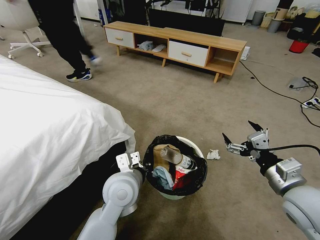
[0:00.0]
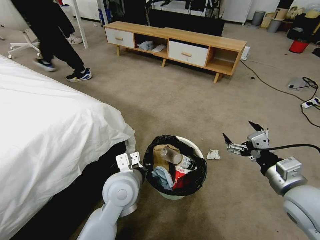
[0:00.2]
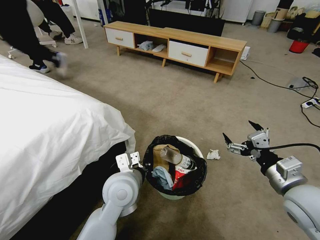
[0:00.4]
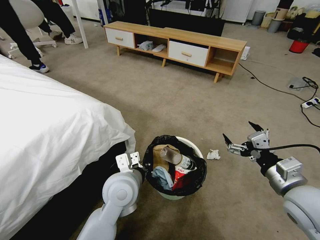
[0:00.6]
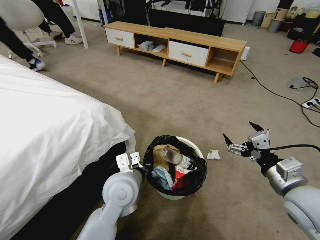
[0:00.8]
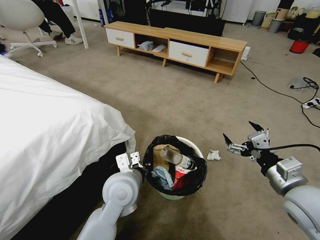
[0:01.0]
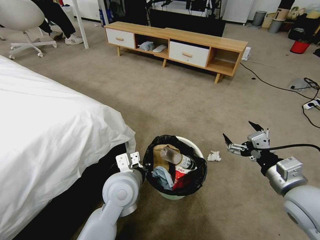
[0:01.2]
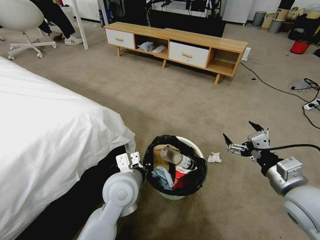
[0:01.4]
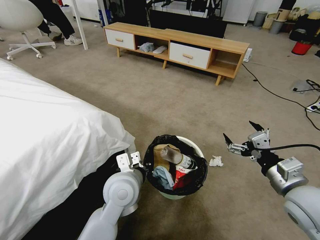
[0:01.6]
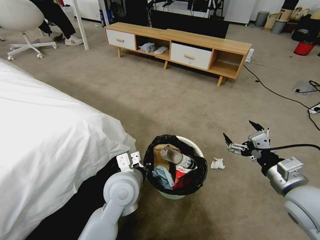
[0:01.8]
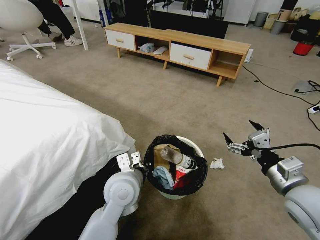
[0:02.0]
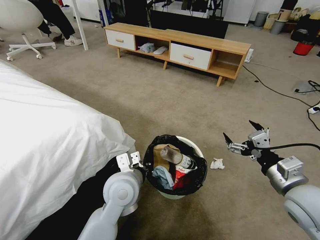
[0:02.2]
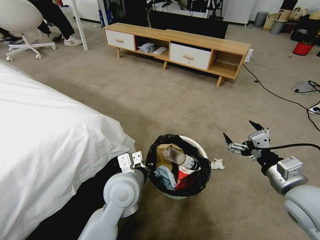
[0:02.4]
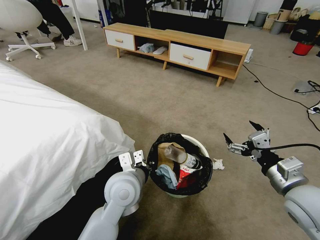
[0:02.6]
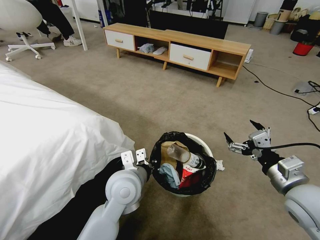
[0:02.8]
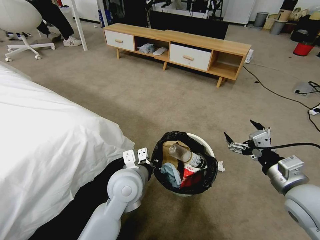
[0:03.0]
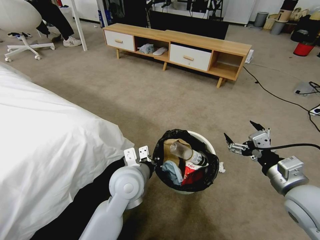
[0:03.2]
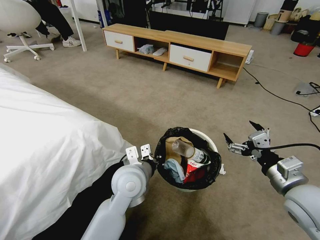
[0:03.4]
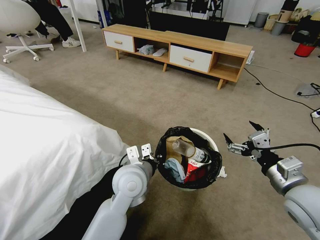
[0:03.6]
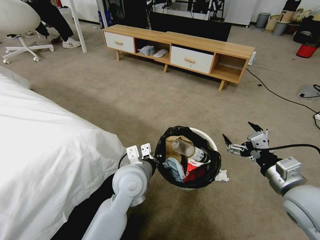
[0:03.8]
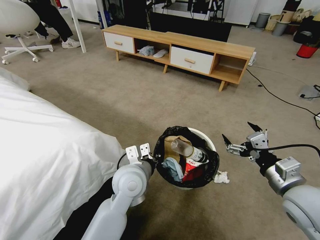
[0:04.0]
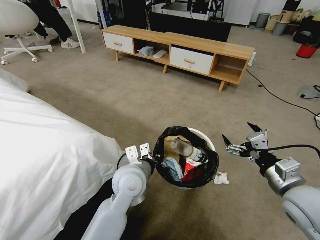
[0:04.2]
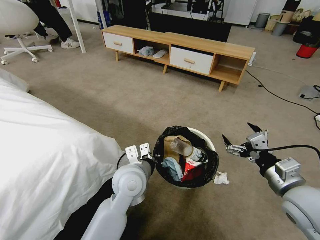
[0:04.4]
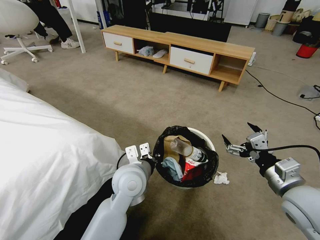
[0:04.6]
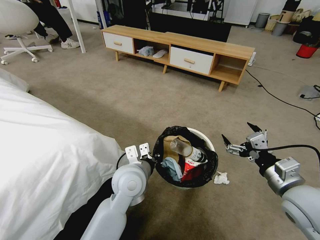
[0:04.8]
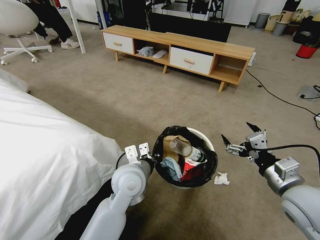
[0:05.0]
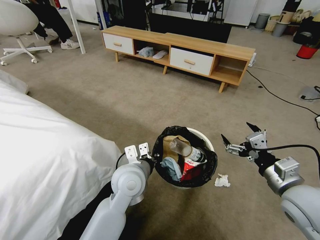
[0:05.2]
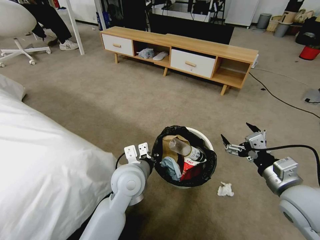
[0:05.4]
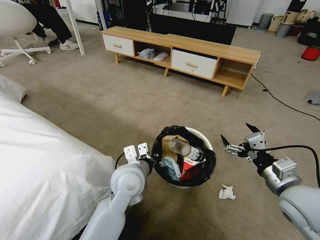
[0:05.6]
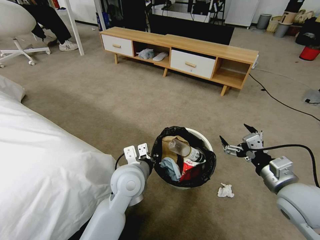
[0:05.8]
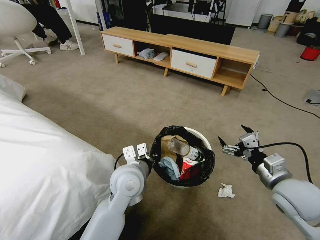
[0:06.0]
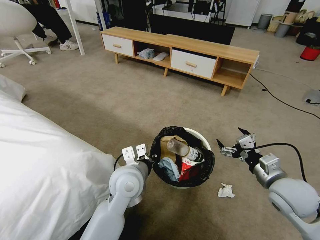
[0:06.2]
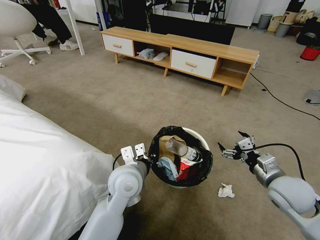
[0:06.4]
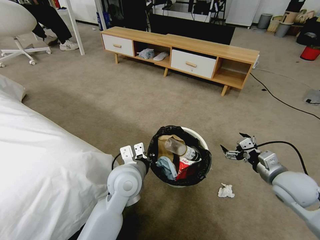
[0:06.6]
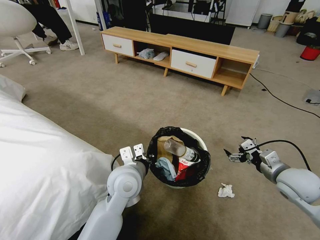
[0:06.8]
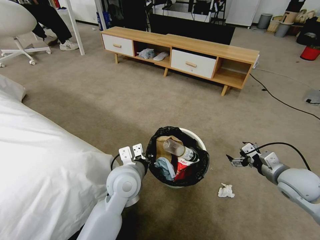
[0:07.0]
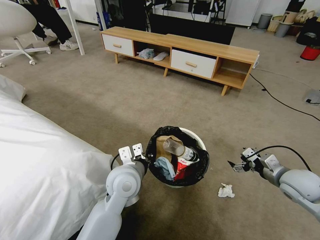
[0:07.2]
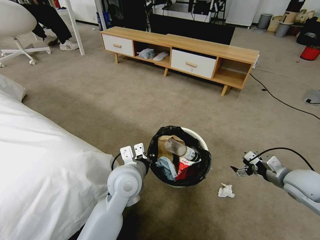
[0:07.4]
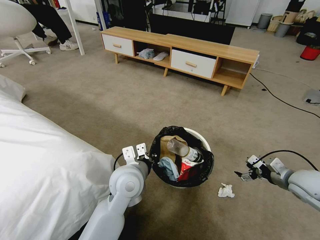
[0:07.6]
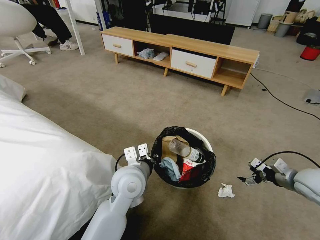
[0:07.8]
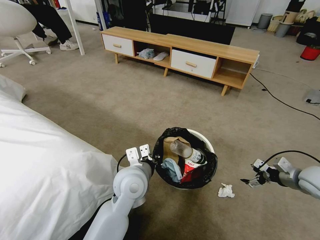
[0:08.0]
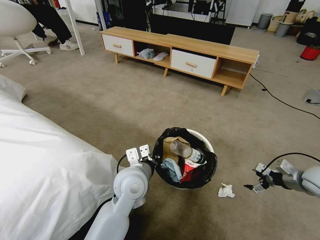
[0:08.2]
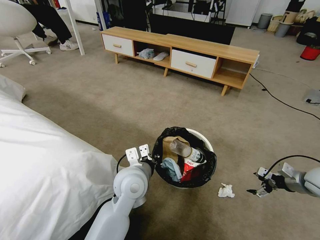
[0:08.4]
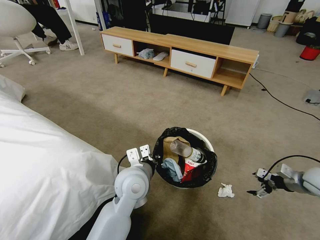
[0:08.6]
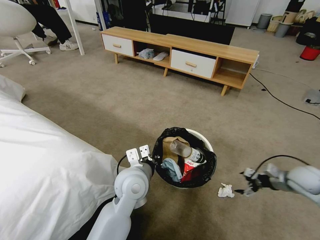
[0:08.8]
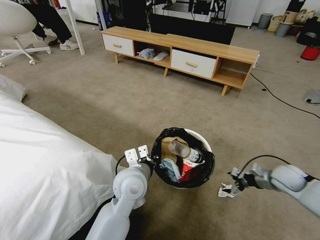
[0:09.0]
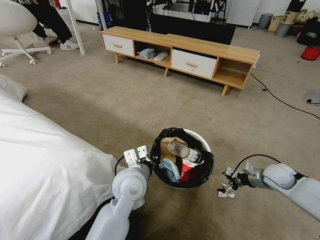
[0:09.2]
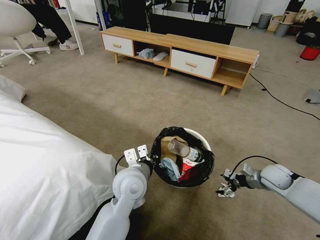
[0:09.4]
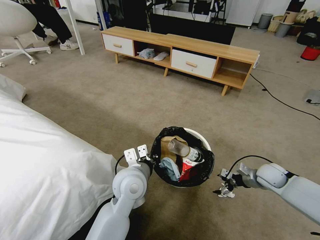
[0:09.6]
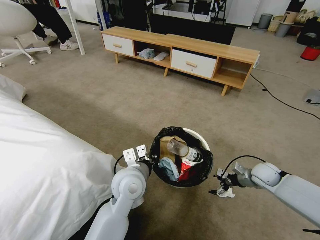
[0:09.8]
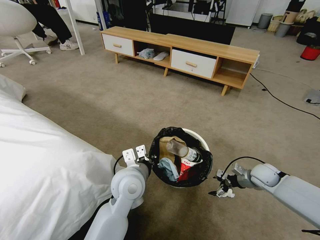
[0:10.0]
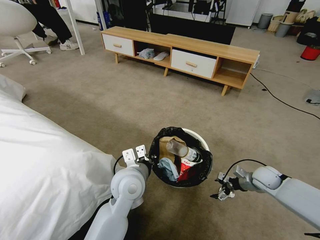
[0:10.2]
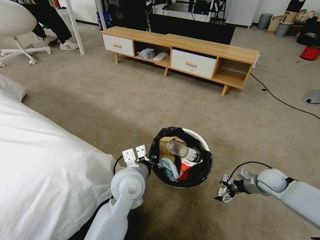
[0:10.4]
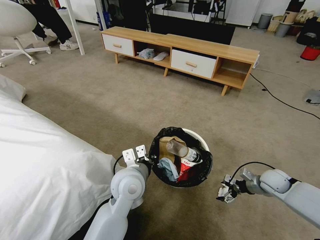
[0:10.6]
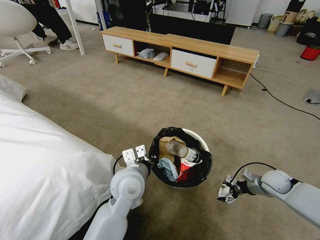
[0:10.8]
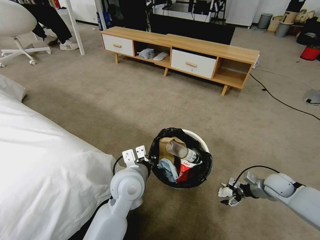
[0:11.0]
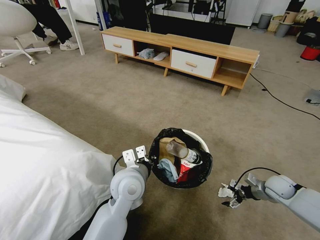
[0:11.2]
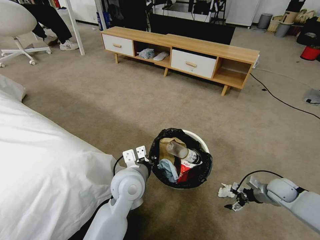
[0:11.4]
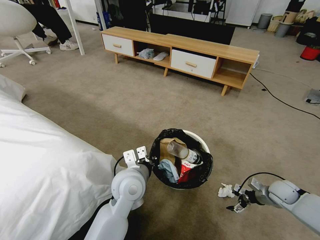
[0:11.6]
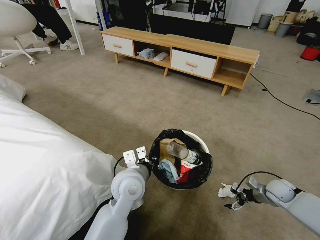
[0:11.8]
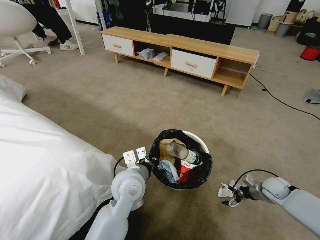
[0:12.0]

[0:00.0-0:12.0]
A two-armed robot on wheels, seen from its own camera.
Task of the whole recording: Pick up the trash bin, then pick up the garbage from the floor and place it into the trash bin.
0:00.0 to 0:01.6: Neither gripper changes place.
0:01.6 to 0:03.0: There are only small adjustments of the grippers.
0:06.0 to 0:07.6: The right gripper goes some 15 cm to the right, downward and forward.
0:07.6 to 0:09.0: The right gripper goes some 10 cm downward and forward.
0:09.0 to 0:10.4: The right gripper changes place by approximately 5 cm.
0:10.4 to 0:12.0: The right gripper moves approximately 5 cm.

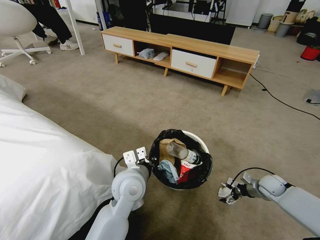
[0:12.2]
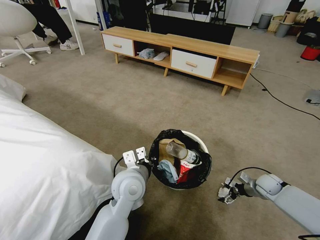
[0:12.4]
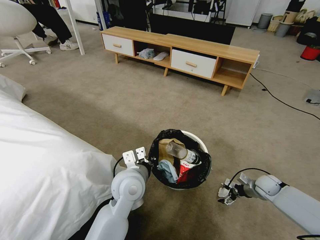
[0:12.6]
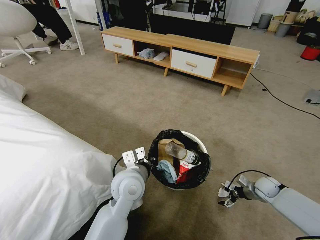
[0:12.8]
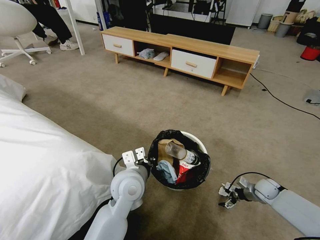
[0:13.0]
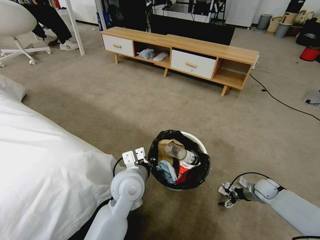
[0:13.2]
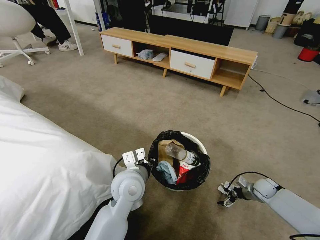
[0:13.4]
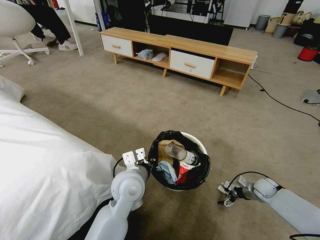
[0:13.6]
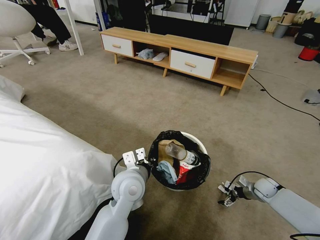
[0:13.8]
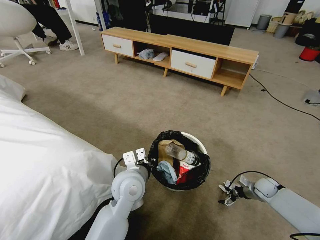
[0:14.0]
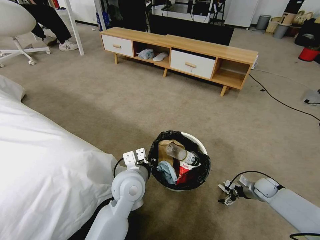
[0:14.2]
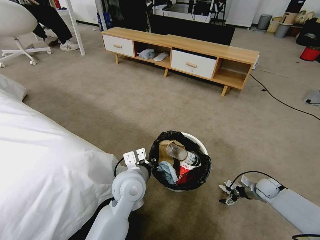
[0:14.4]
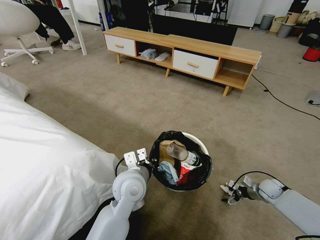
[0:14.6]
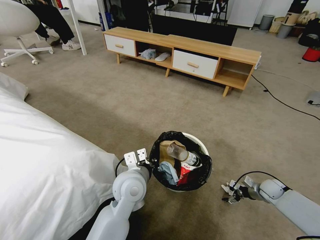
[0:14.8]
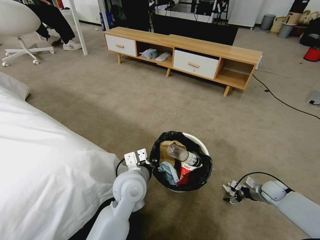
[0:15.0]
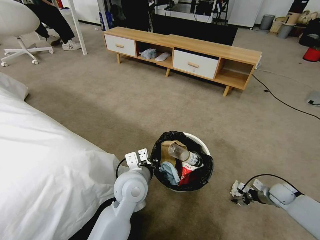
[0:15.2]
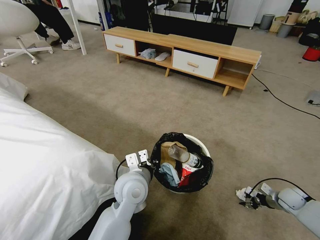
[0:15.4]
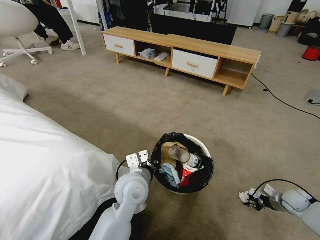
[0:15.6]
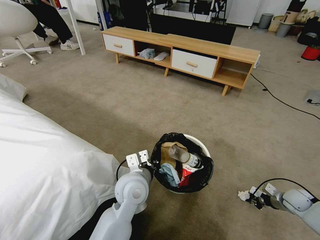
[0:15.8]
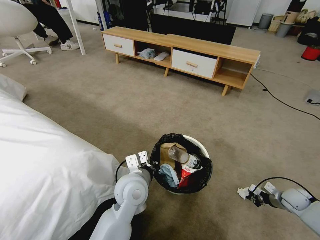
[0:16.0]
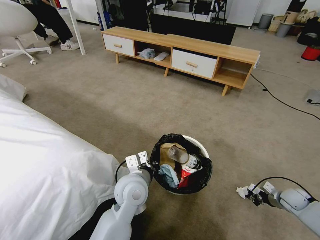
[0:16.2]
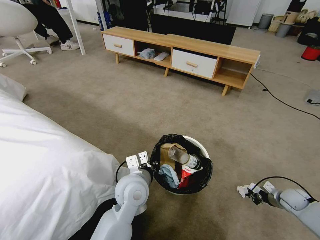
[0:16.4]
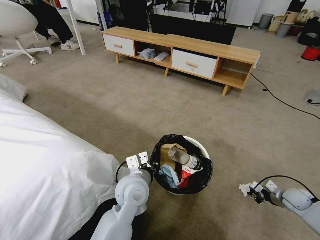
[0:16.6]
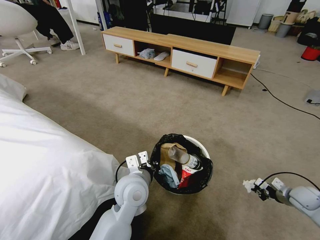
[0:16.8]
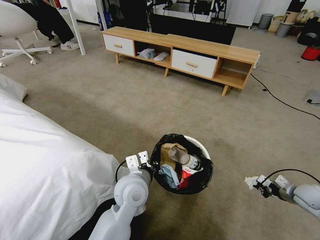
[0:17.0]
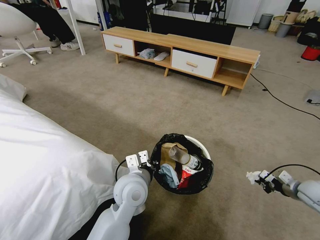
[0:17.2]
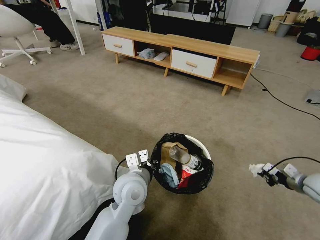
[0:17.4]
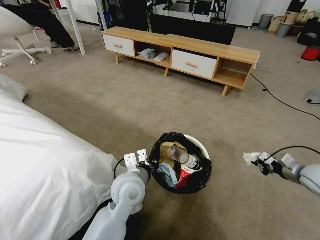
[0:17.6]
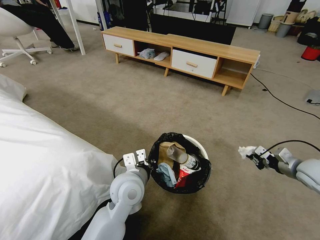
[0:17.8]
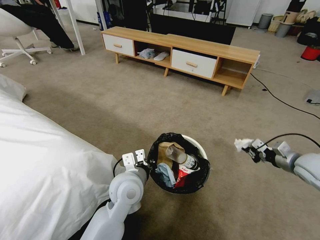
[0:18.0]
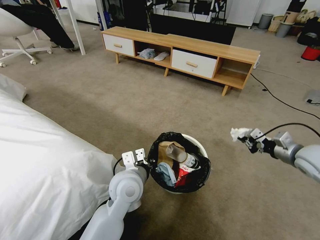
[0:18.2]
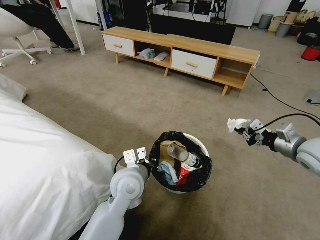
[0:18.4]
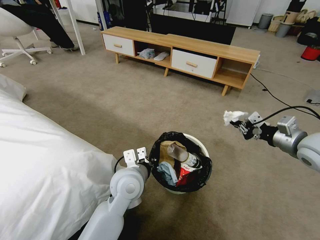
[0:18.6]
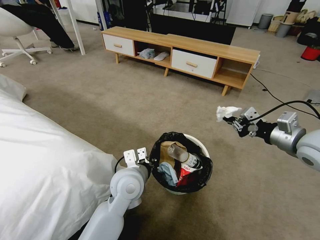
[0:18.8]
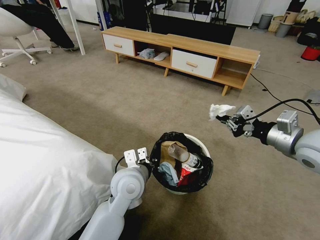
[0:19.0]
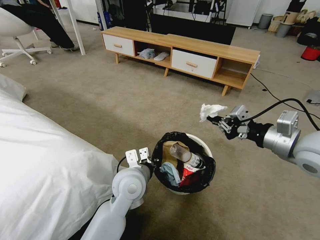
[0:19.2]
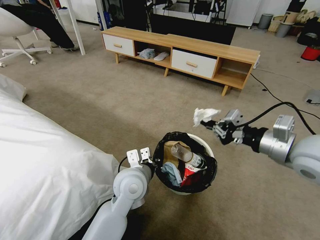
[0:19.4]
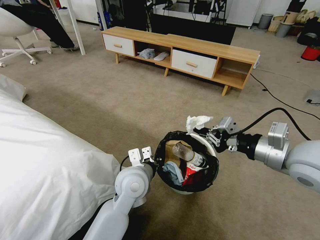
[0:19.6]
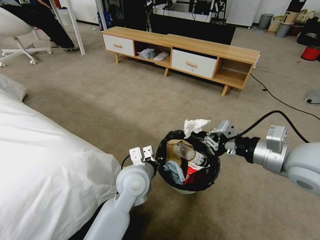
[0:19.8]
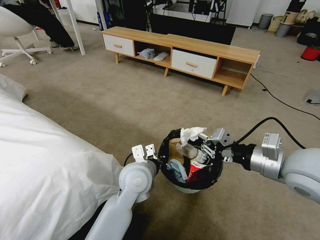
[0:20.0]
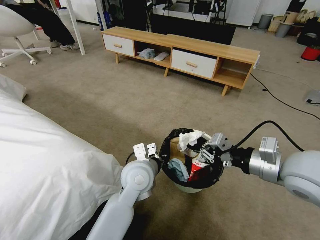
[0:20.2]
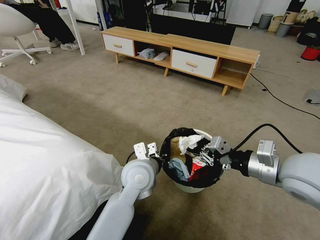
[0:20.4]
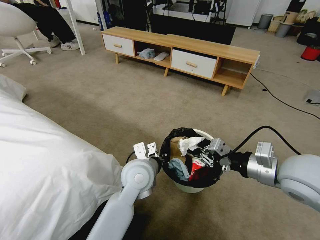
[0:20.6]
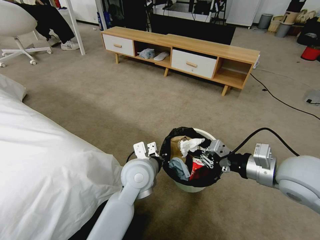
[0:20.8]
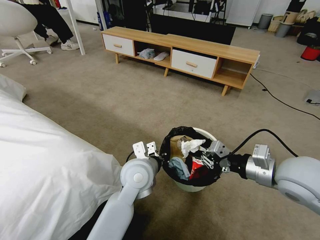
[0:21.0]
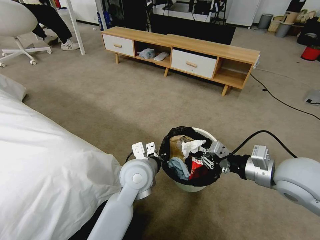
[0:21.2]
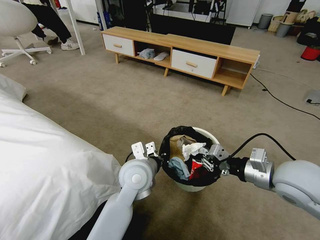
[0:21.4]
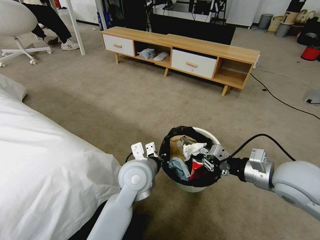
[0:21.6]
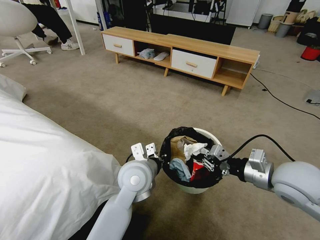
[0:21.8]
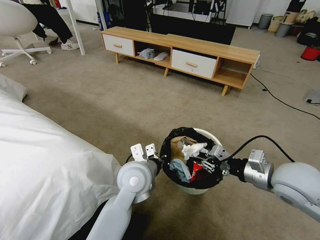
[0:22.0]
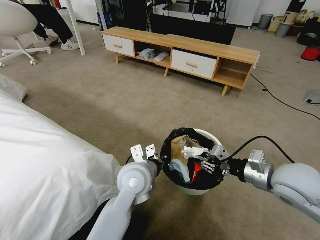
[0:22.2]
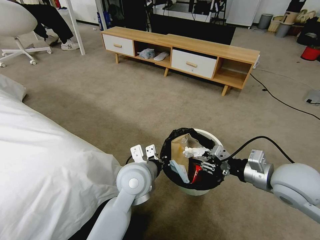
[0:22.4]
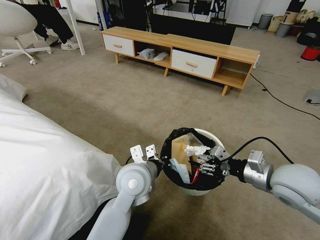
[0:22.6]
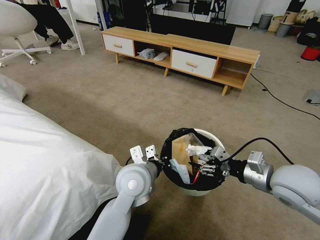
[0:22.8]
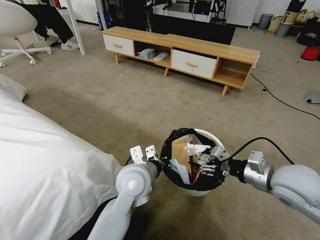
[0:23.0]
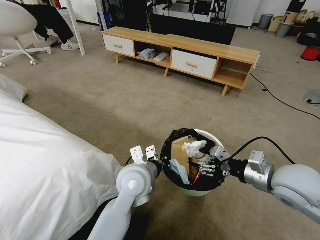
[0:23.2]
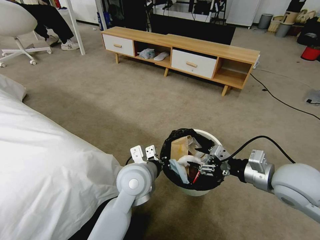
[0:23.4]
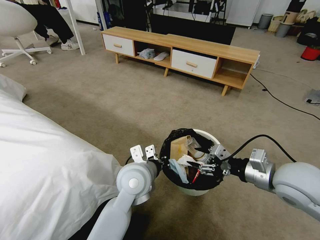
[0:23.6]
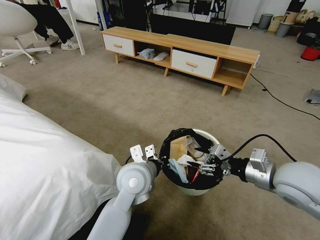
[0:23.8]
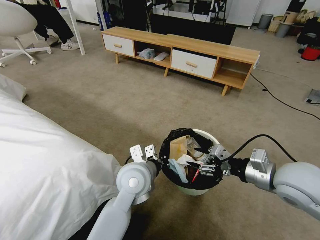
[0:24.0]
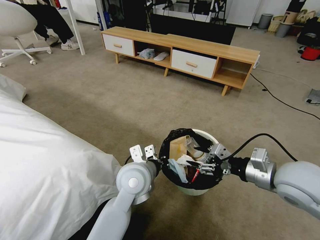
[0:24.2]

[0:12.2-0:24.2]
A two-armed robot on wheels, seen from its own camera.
Task of the whole recording: Pick up the trash bin, then pick up the garbage from the floor and place it into the trash bin.
0:12.2 to 0:13.8: The grippers make only small movements.
0:13.8 to 0:15.2: The right gripper changes place by some 5 cm.
0:15.2 to 0:16.6: The right gripper closes up.
0:16.6 to 0:18.2: The right gripper is displaced upward by roughly 25 cm.
0:18.2 to 0:19.8: The right gripper moves to the left, upward and backward, roughly 20 cm.
0:19.8 to 0:21.2: The right gripper moves downward, about 5 cm.
0:21.2 to 0:22.6: The right gripper opens its fingers.
0:22.6 to 0:24.2: The grippers stay close to where they were, moving slightly.
